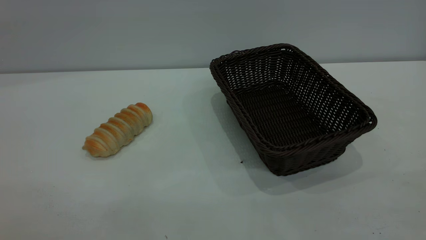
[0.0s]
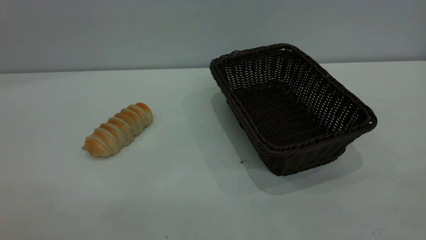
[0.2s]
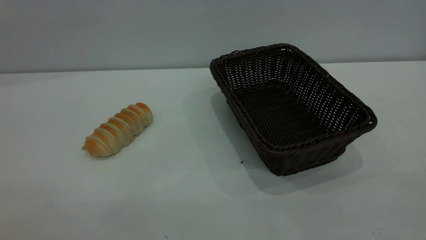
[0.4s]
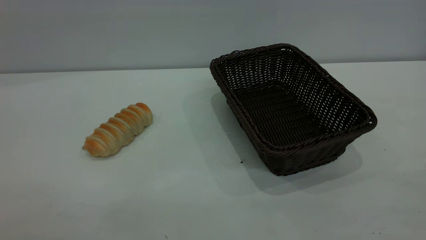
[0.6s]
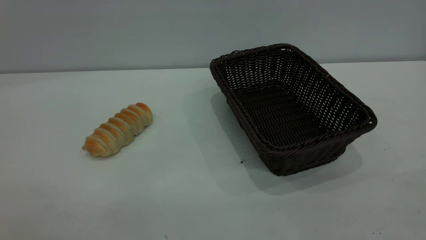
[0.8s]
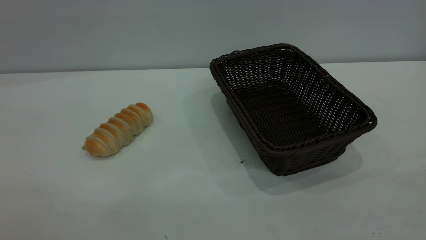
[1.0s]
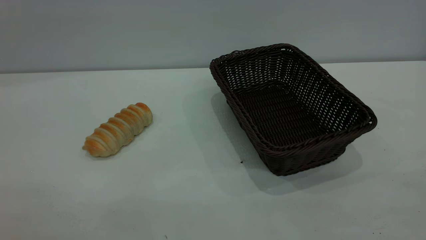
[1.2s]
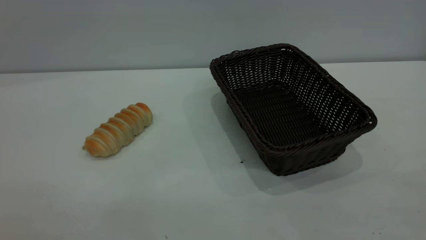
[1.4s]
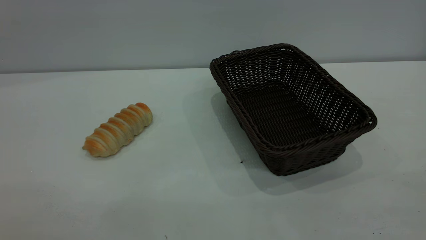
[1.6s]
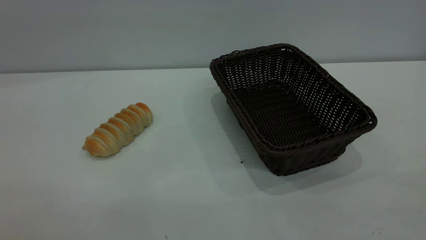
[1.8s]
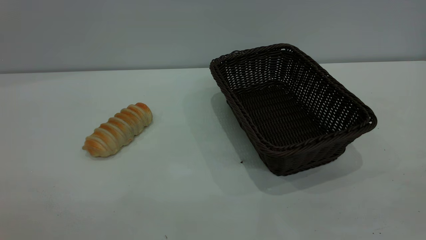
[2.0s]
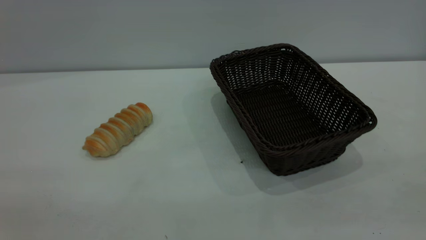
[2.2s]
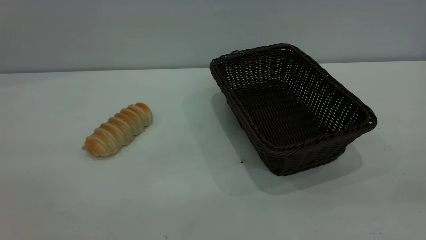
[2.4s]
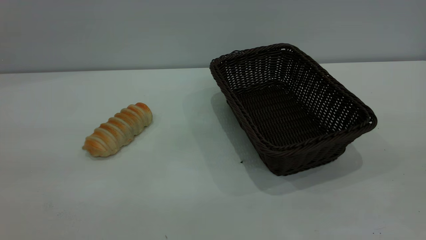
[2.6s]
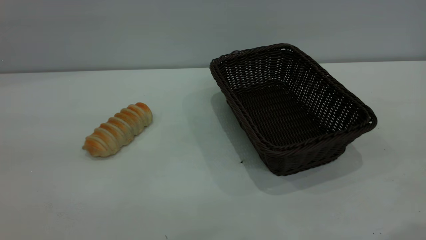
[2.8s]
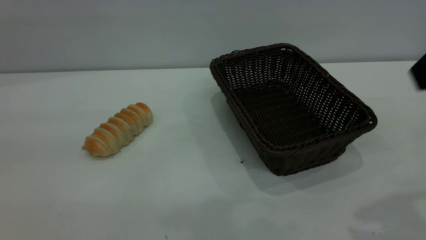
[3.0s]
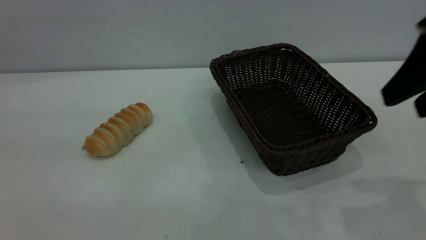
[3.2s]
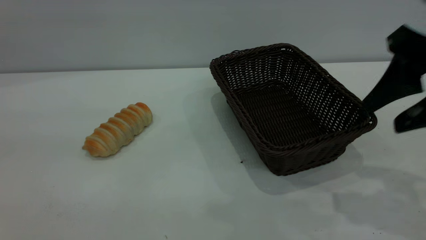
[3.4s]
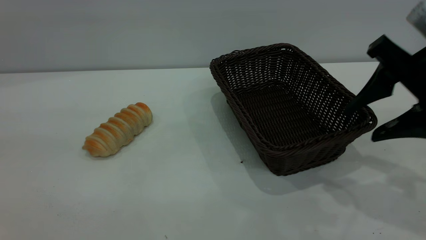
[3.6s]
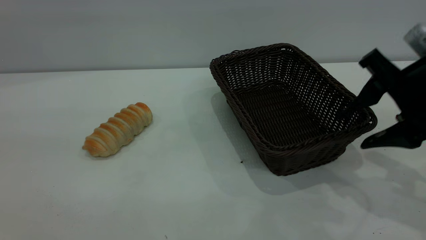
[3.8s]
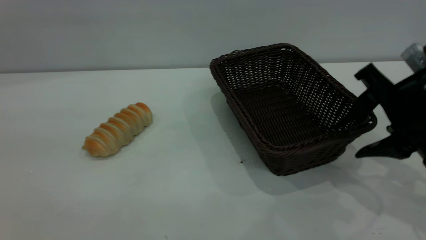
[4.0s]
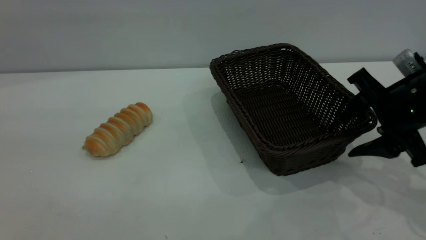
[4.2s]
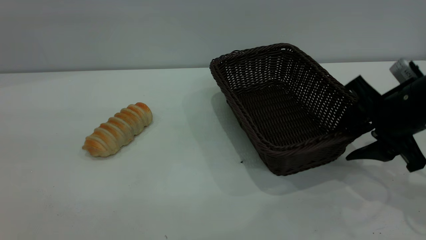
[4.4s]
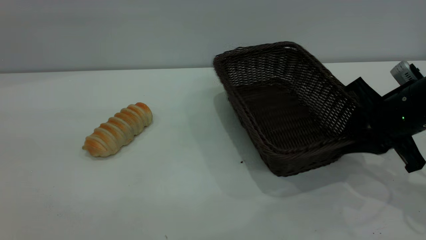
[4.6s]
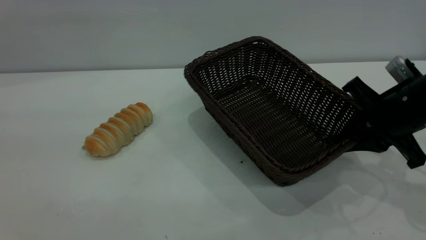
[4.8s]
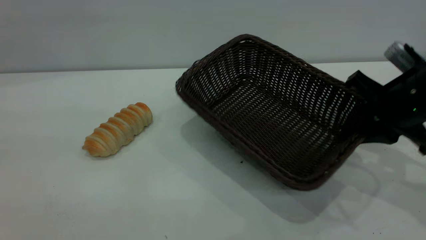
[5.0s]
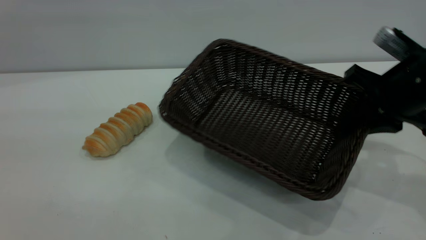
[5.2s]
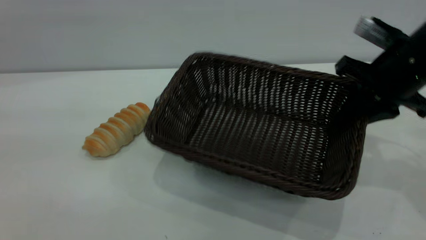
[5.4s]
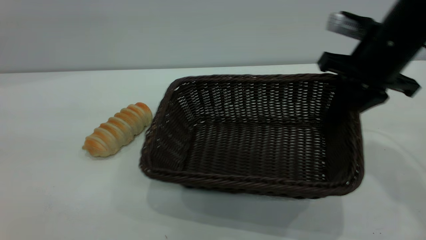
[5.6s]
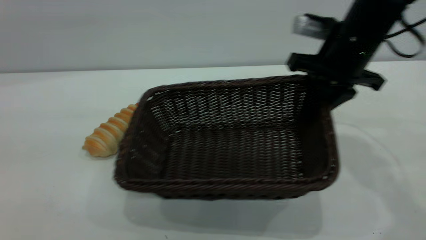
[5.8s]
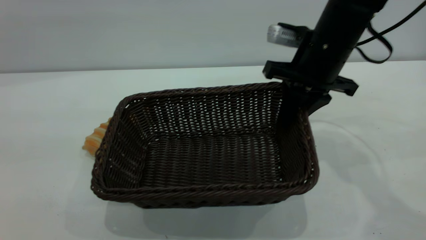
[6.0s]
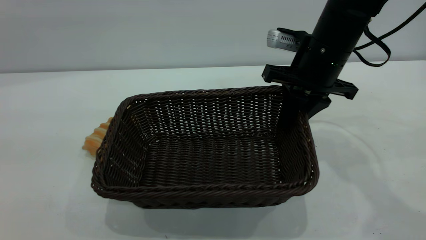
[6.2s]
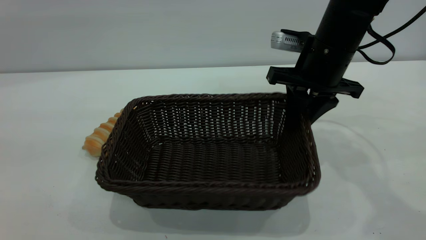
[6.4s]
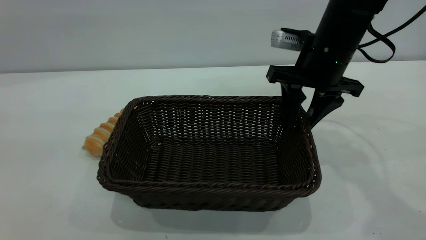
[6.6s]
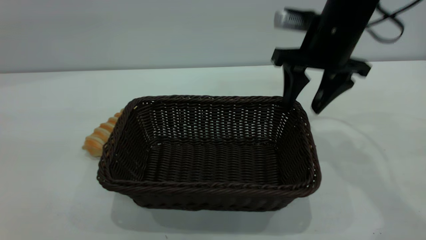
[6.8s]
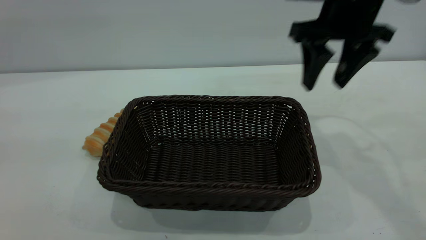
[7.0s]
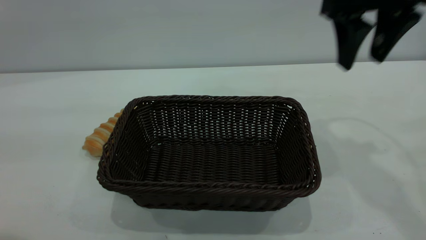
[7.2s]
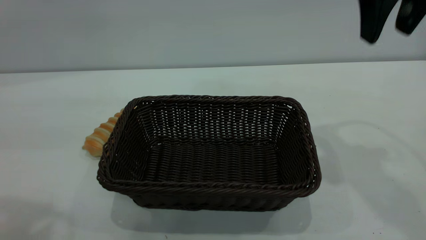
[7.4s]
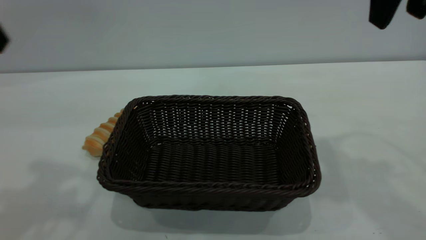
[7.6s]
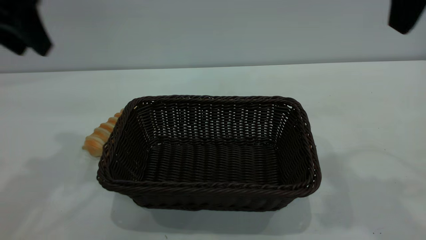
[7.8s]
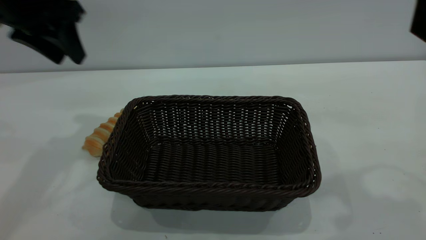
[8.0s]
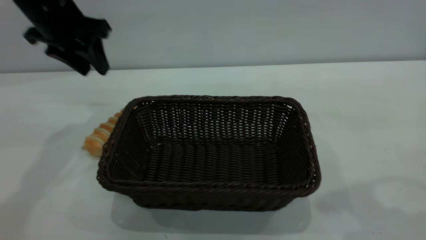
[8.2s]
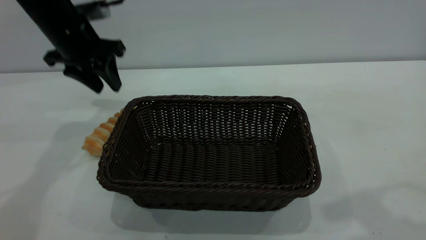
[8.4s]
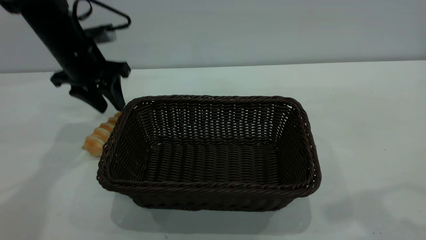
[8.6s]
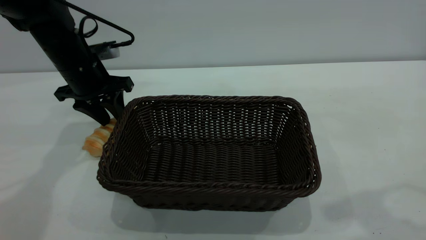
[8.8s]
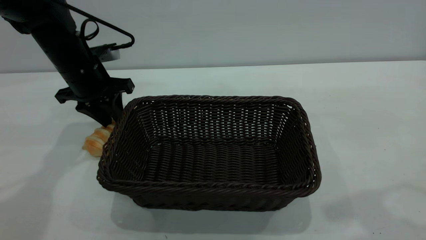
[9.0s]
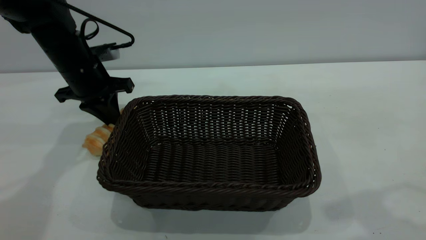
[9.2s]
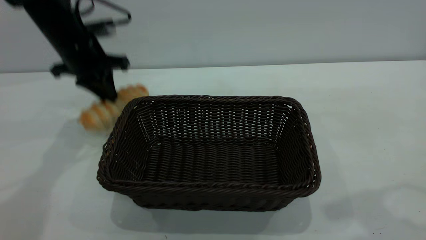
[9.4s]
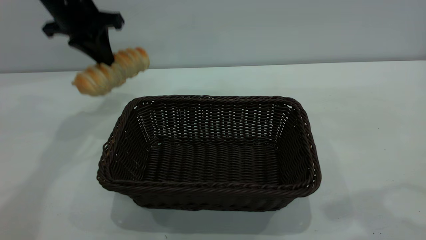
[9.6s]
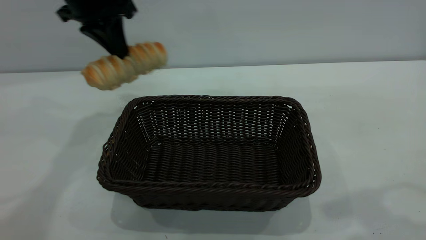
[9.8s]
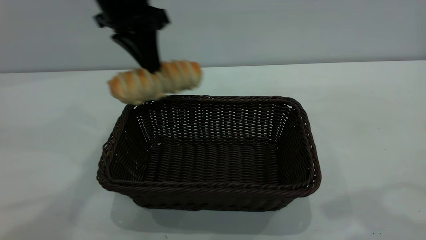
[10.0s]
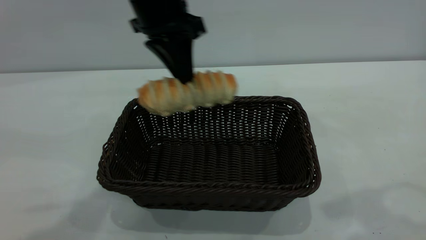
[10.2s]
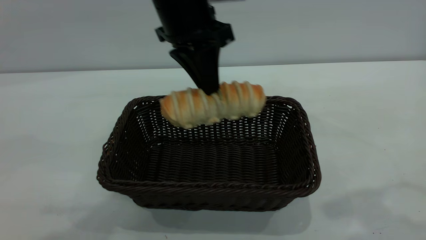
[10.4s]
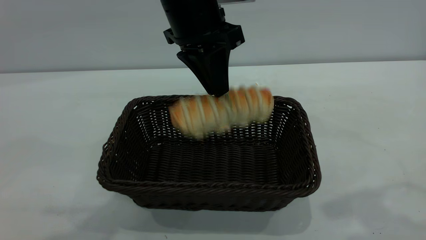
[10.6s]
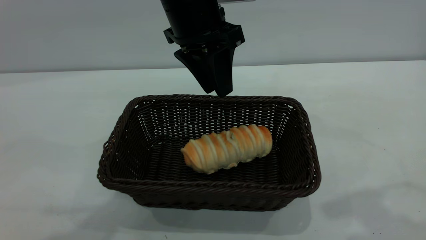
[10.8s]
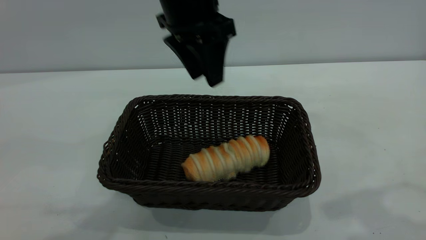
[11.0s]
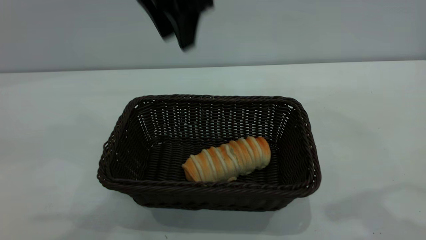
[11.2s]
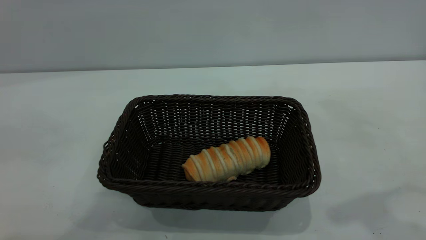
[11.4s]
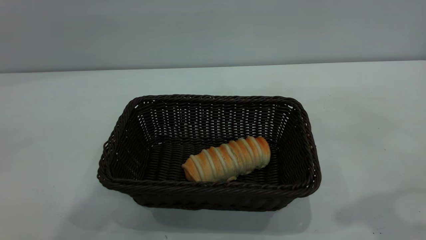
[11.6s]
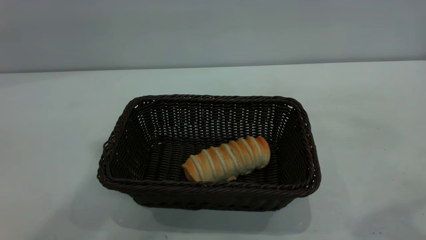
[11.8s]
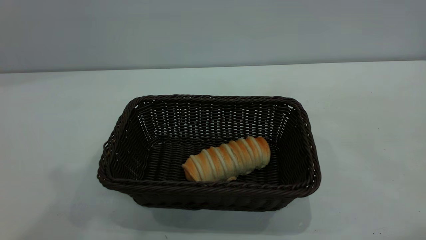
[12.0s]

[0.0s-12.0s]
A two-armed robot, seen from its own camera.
Task of the whole recording: One hand grasps the black basket and places it in the middle of the table, while the other hand picks up the long bread and puts it into the black basket.
Step, 0.0s to 6.8s: Move the basket to the center of view.
Step, 9.8s to 10.8s: place the bread into the basket.
0.0s to 1.6s: Both grippers stay about where they are.
3.0s to 4.4s: The right gripper travels downward and forward by about 20 cm.
4.4s to 6.0s: The right gripper travels to the left, forward and upward by some 15 cm, and closes its fingers.
6.0s to 7.6s: The right gripper heads upward and backward, covering some 20 cm, and opens, while the left gripper travels forward by roughly 15 cm.
7.6s to 9.0s: The right gripper goes some 10 cm backward. The left gripper is displaced downward and forward by some 30 cm, and closes up.
9.0s to 10.4s: The left gripper moves to the right and upward, about 25 cm, and closes its fingers.
10.4s to 12.0s: The right gripper goes about 10 cm backward and upward. The left gripper heads upward, to the left and backward, covering roughly 30 cm, and opens up.
